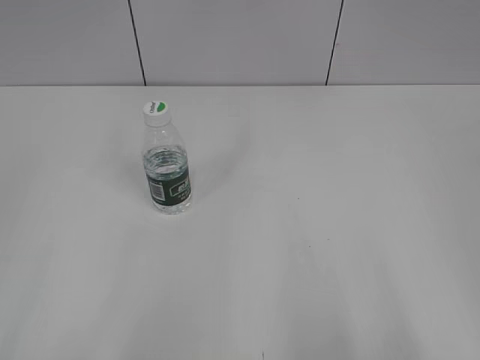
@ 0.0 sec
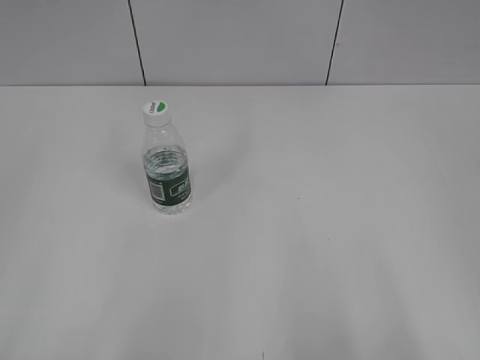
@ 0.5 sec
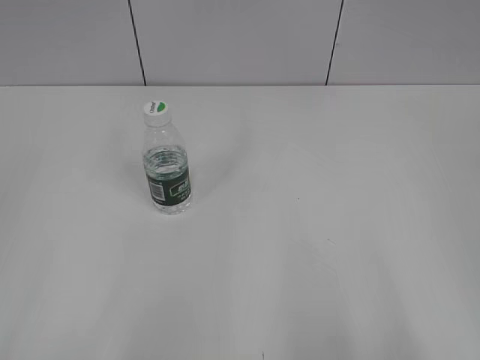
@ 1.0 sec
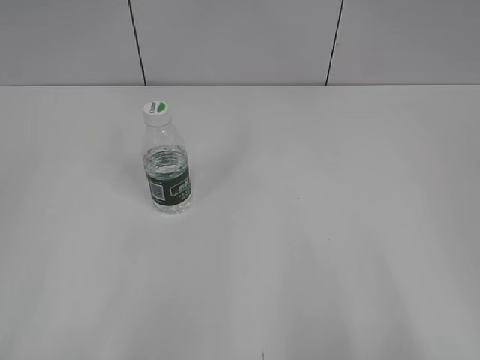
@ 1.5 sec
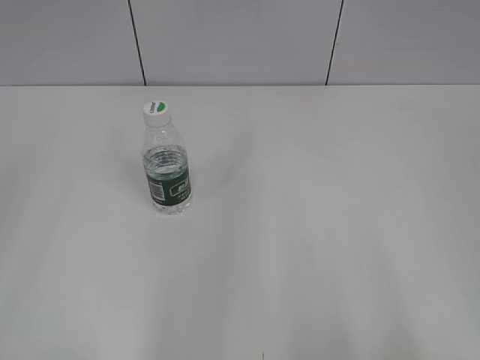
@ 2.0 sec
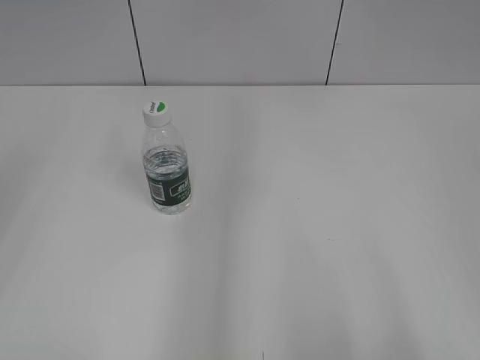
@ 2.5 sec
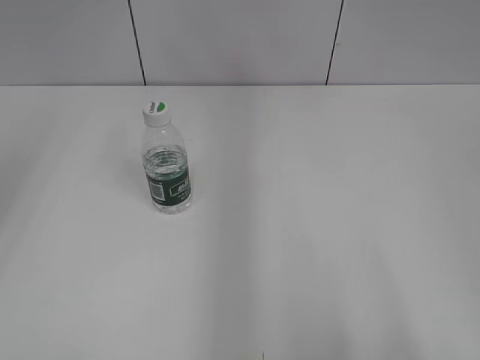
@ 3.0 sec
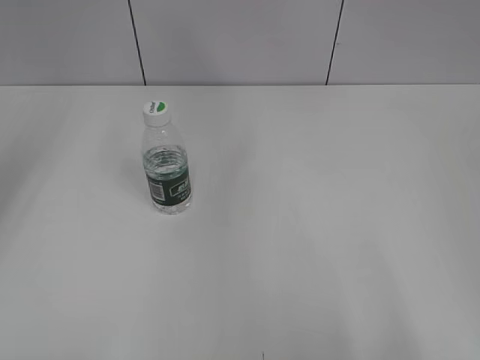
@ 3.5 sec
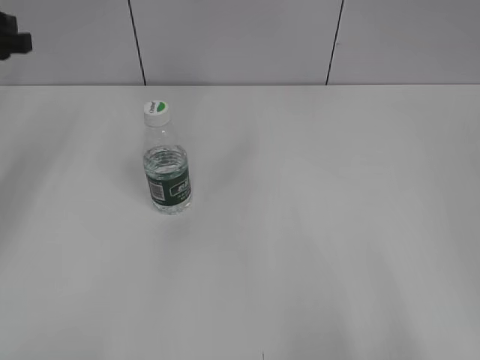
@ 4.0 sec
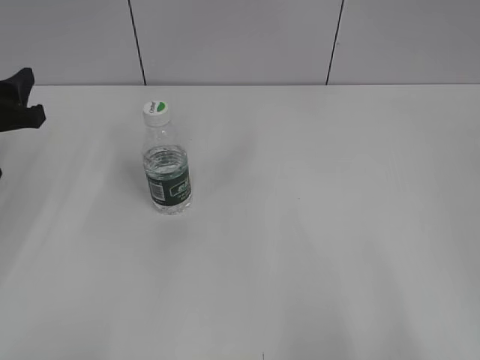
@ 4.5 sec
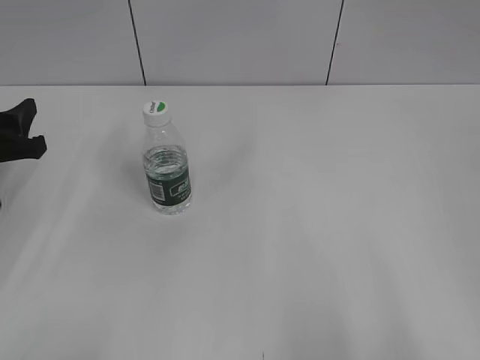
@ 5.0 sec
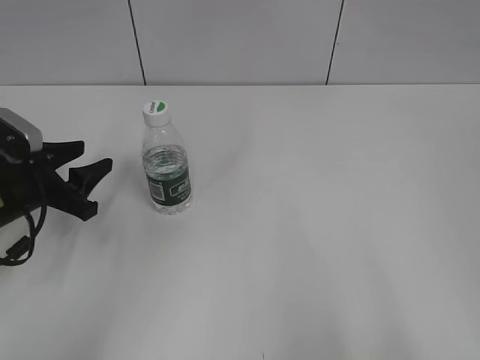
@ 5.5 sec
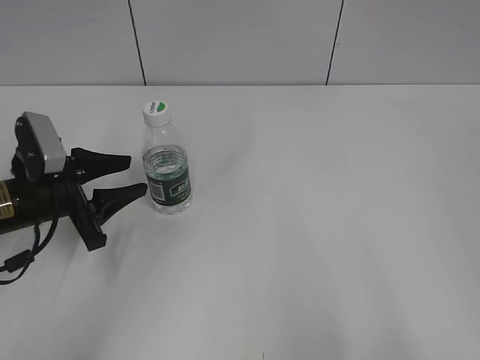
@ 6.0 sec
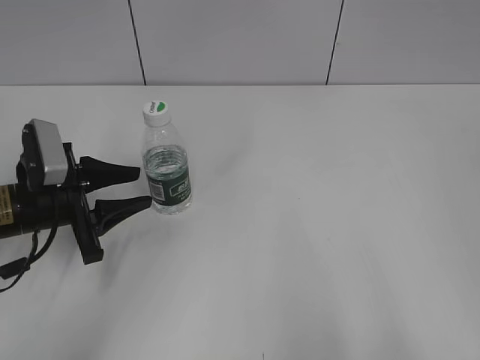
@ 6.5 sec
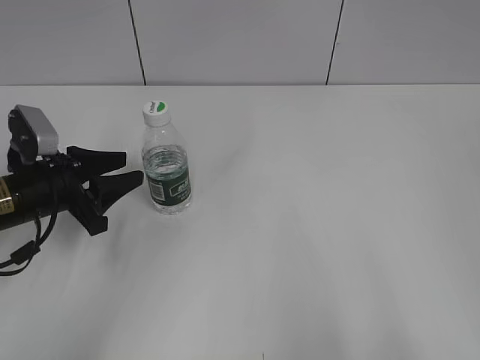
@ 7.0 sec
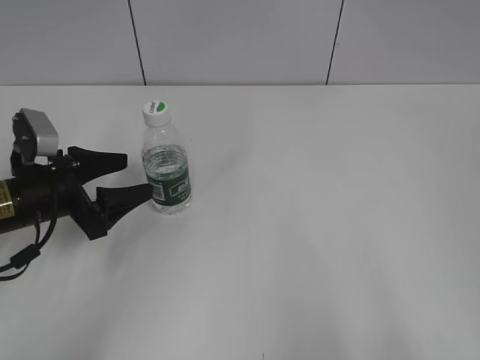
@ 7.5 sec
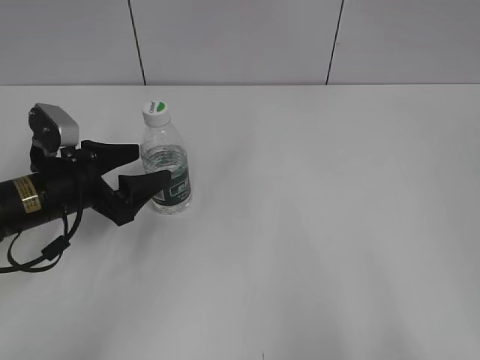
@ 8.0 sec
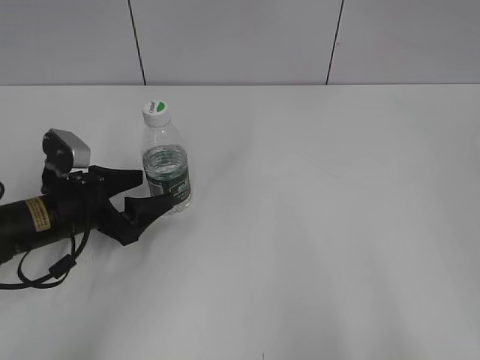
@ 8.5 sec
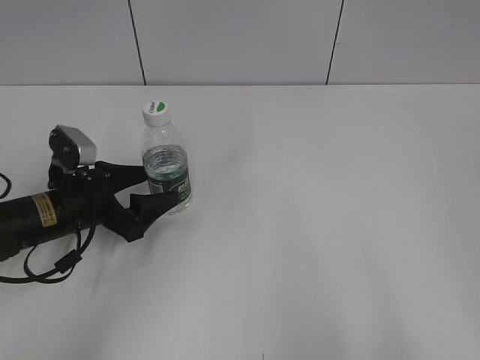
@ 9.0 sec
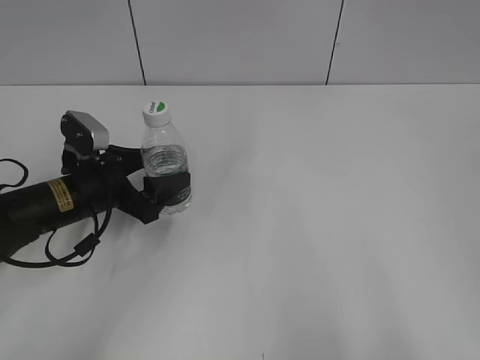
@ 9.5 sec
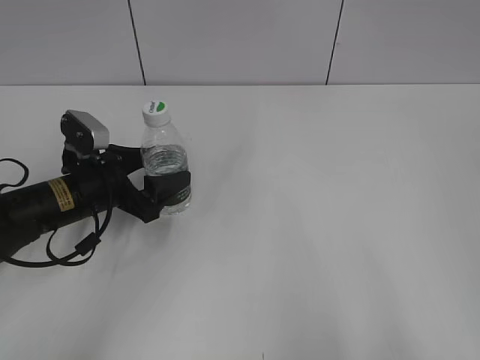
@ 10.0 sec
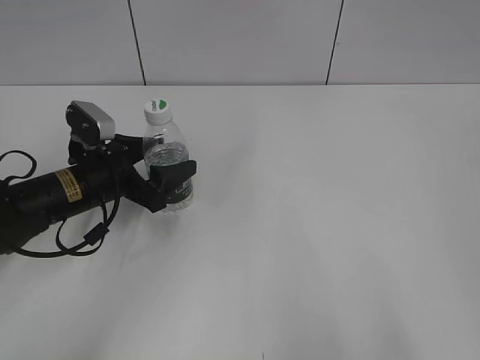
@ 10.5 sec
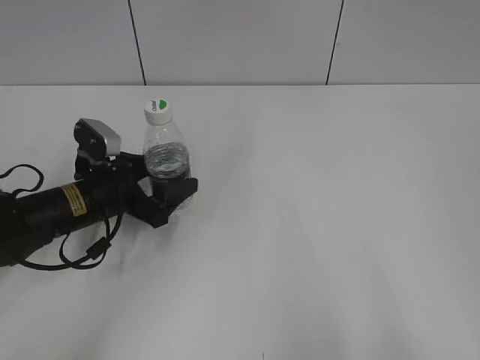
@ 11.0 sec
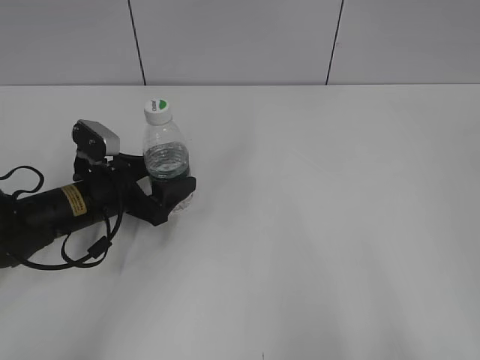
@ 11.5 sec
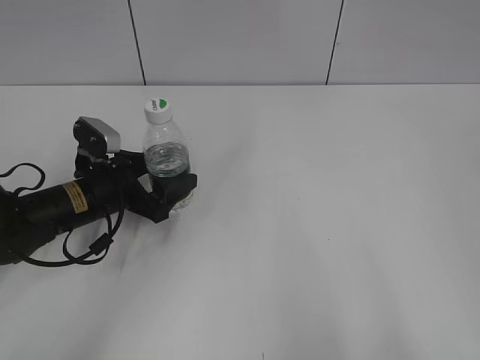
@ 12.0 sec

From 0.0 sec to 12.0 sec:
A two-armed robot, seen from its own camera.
From 4.0 sec to 6.0 sec: The left gripper moves downward, backward and to the right, about 20 cm.
From 6.0 sec to 8.0 sec: The left gripper opens.
From 8.0 sec to 12.0 sec: The grippers stay close to where they were, moving slightly.

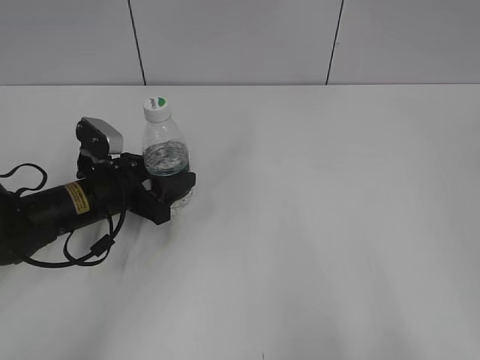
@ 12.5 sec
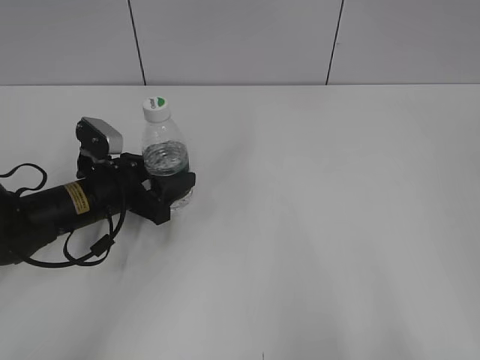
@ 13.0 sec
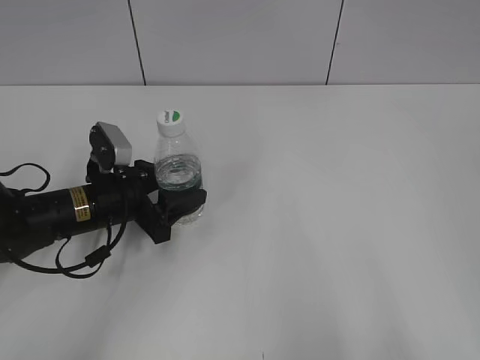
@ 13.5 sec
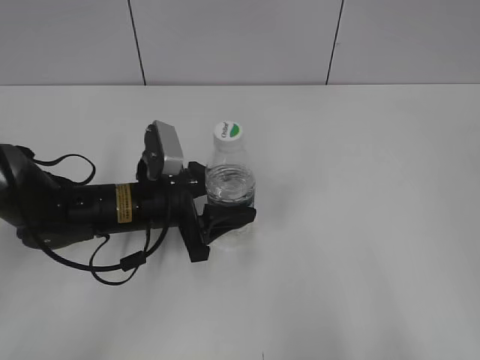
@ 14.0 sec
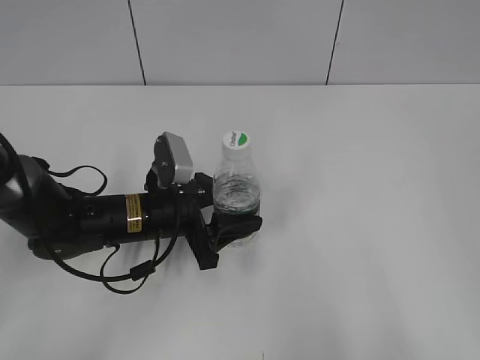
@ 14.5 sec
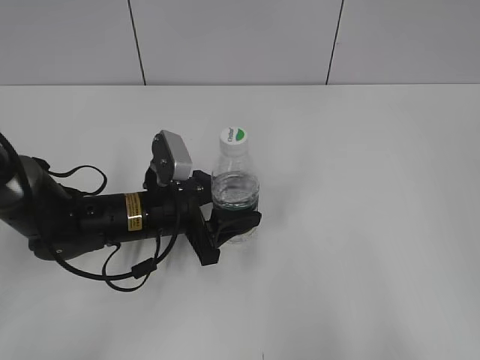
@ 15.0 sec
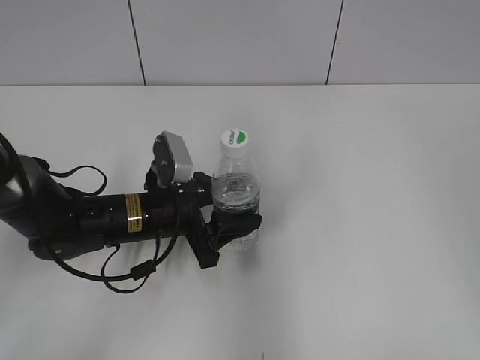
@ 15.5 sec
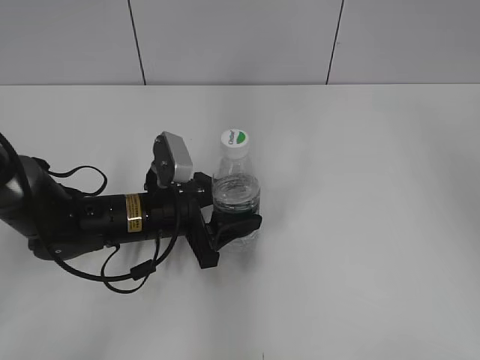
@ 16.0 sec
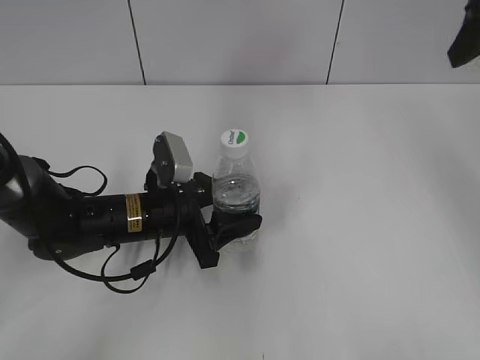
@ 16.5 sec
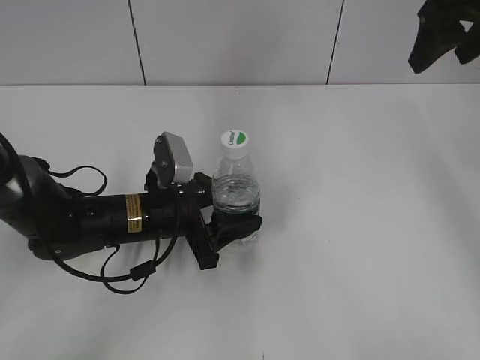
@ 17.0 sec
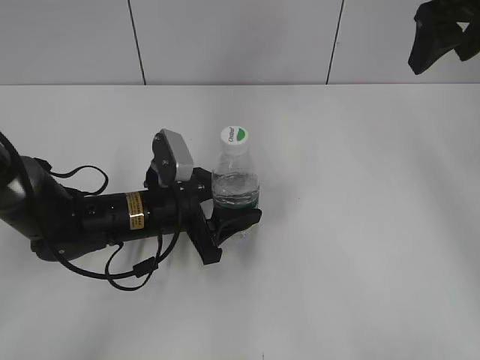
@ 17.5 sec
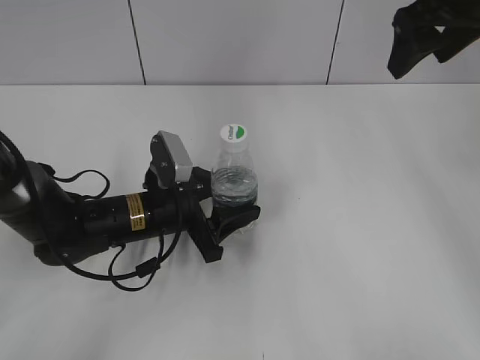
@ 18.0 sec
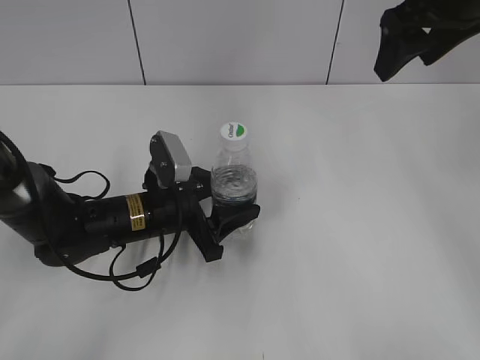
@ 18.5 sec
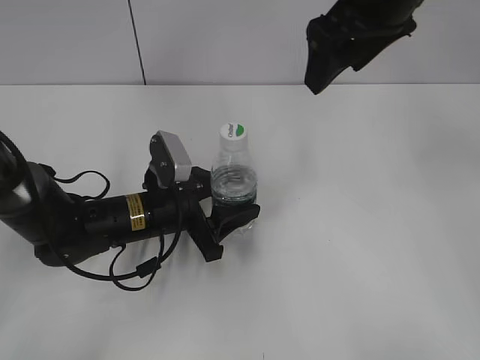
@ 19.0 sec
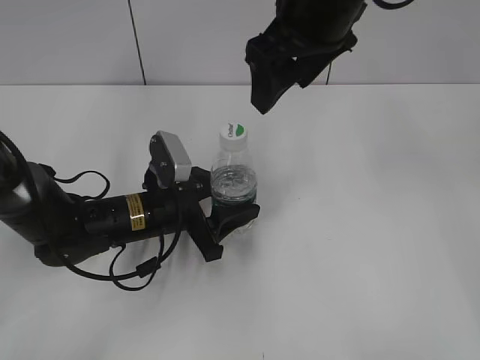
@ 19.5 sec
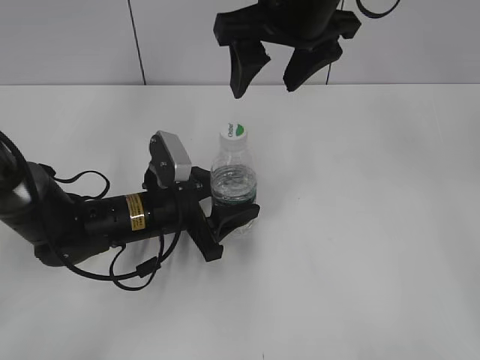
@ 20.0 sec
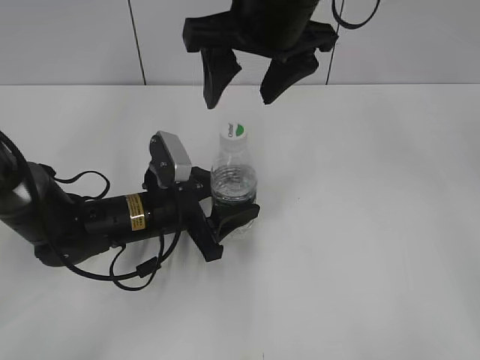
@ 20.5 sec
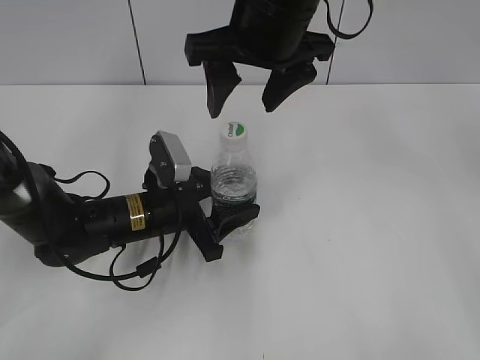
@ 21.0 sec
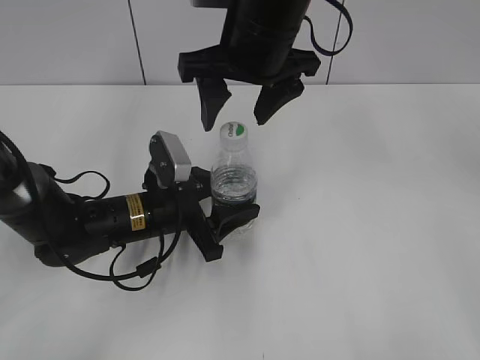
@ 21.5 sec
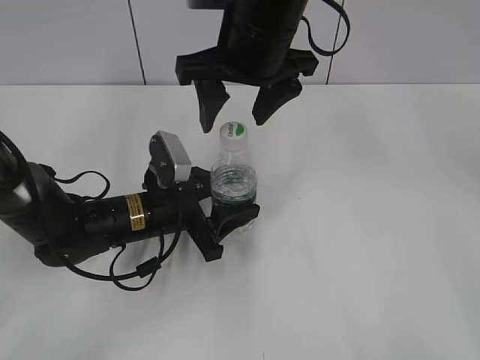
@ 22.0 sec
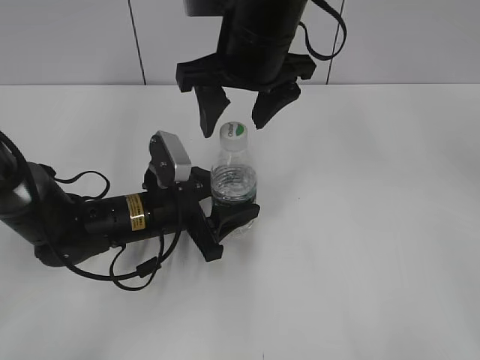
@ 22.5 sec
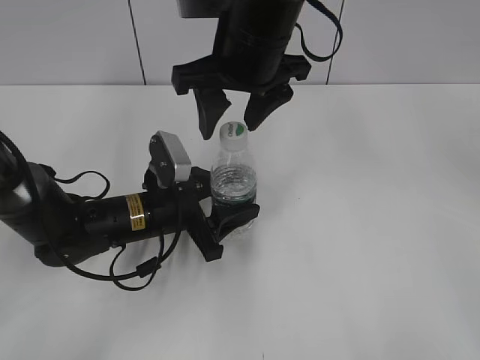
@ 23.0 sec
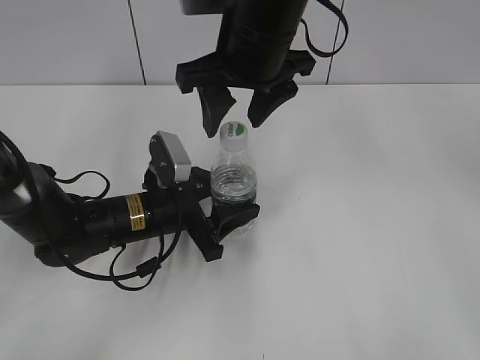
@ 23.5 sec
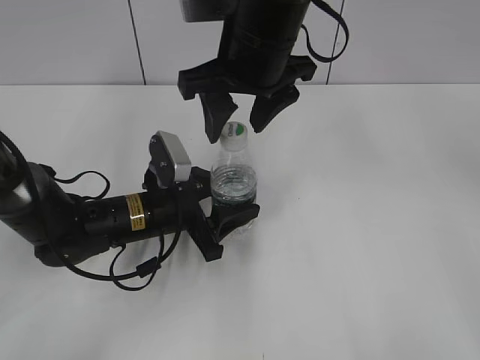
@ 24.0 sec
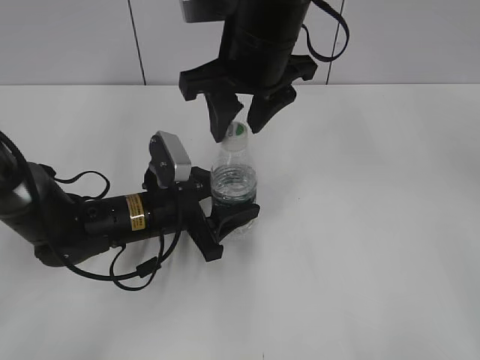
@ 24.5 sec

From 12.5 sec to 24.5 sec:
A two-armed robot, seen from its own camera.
Step, from 13.5 sec to 19.0 sec: Lift the bottle and move it to the center of the table with the left gripper.
From 12.5 sec to 14.5 sec: The left gripper moves to the right, some 10 cm.
From 14.5 sec to 16.5 sec: The right gripper heads forward, covering some 35 cm.
From 16.5 sec to 18.5 sec: The right gripper heads to the left, covering about 10 cm.
From 18.5 sec to 20.5 sec: The right gripper moves to the left, roughly 15 cm.
From 20.5 sec to 22.5 sec: There are only small adjustments of the grippers.
From 22.5 sec to 24.5 sec: The right gripper closes its fingers.

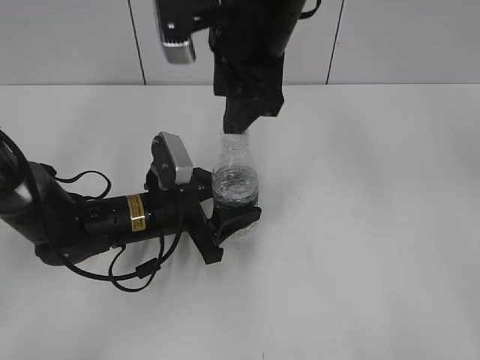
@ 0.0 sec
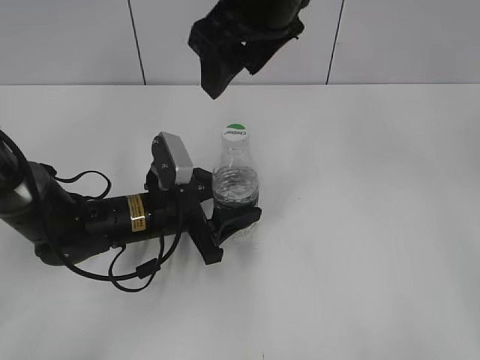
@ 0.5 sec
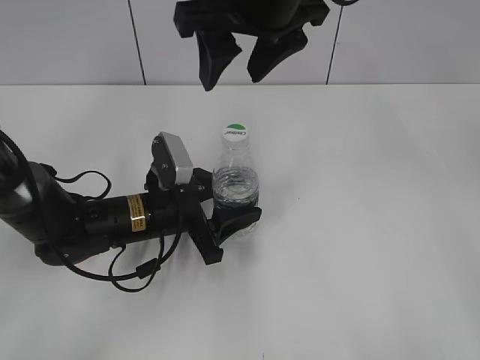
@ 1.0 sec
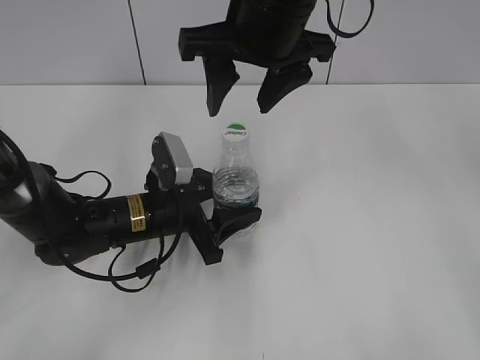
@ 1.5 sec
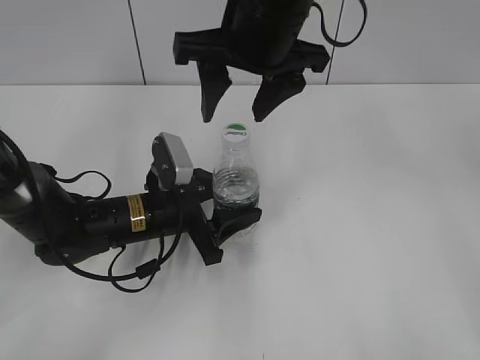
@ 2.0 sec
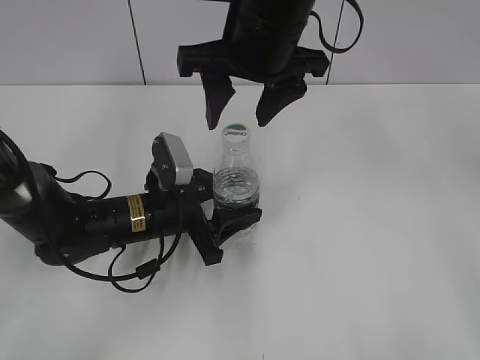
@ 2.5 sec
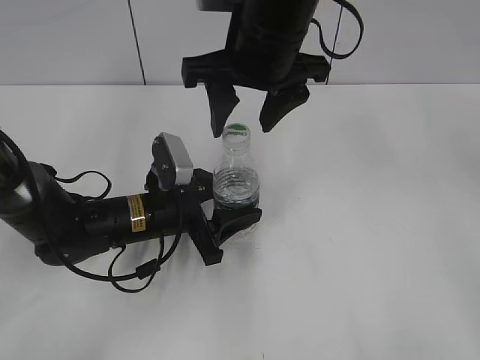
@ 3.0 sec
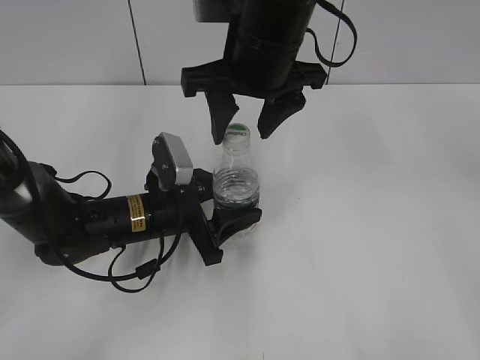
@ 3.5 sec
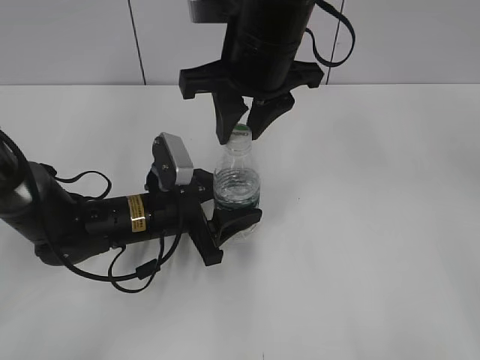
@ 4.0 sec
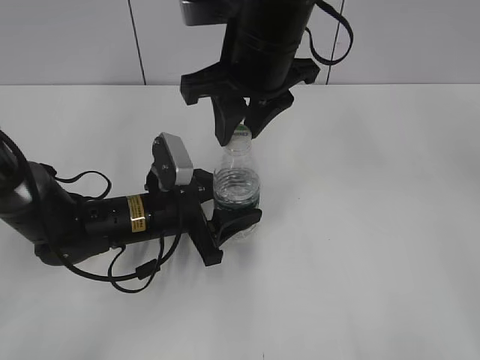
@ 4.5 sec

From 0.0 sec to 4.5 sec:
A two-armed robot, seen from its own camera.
From 2.0 sec to 4.5 sec: The right gripper closes its fingers.
